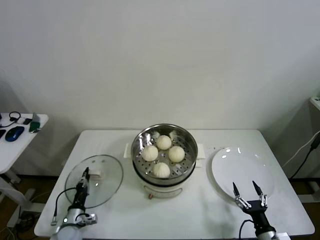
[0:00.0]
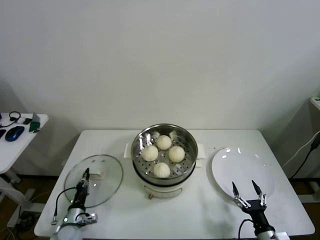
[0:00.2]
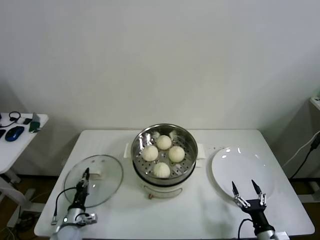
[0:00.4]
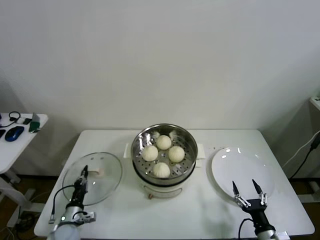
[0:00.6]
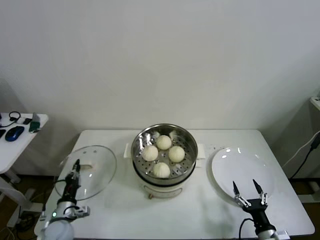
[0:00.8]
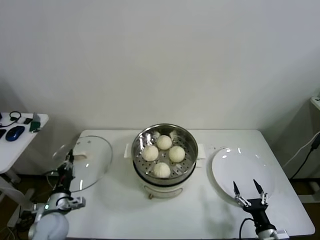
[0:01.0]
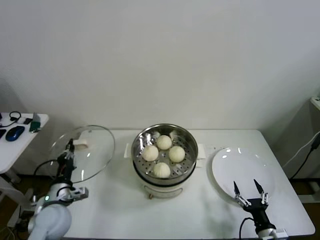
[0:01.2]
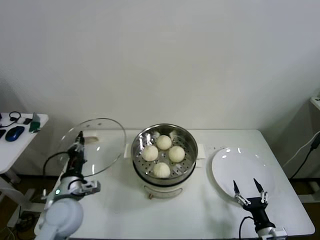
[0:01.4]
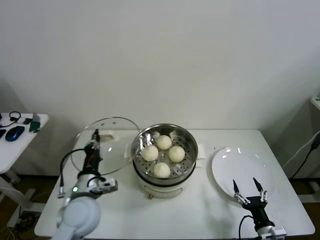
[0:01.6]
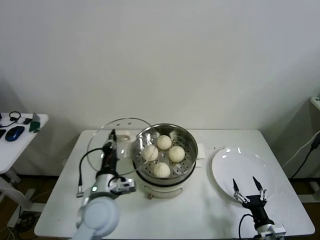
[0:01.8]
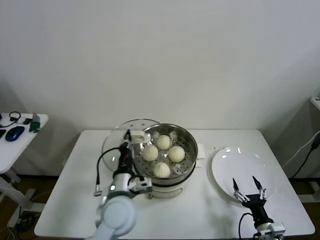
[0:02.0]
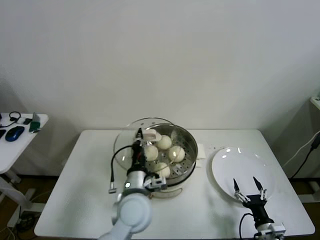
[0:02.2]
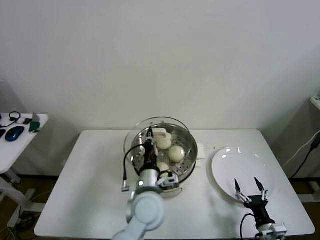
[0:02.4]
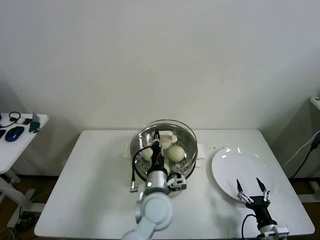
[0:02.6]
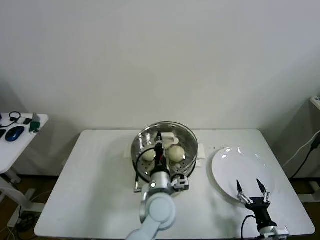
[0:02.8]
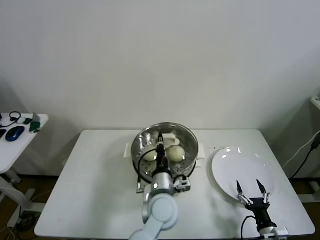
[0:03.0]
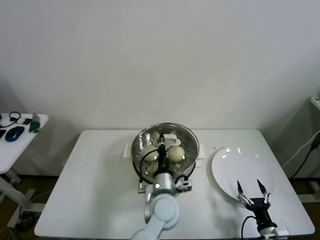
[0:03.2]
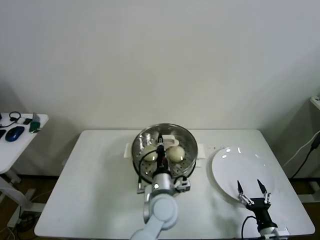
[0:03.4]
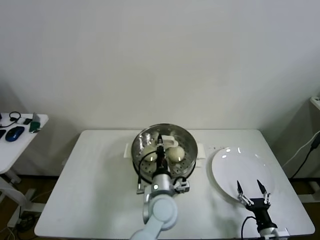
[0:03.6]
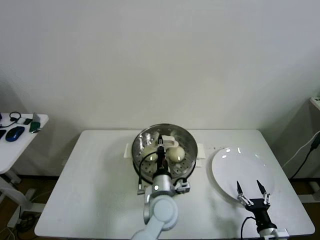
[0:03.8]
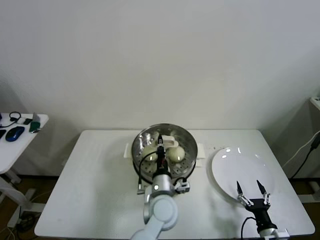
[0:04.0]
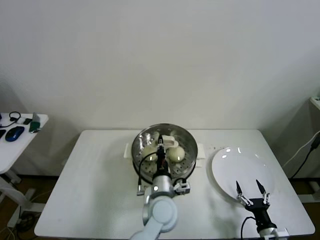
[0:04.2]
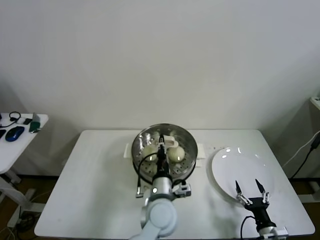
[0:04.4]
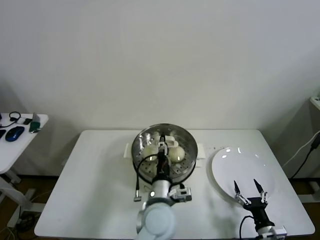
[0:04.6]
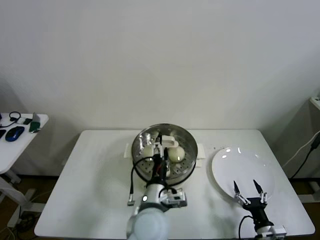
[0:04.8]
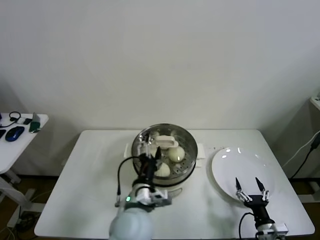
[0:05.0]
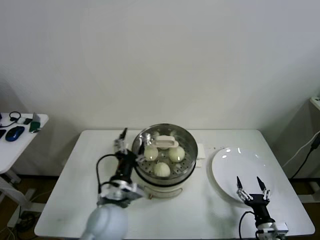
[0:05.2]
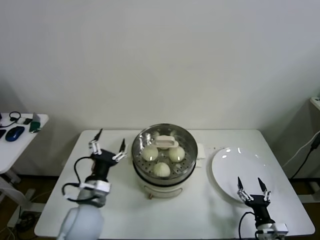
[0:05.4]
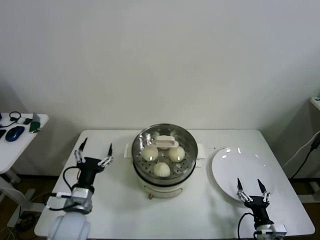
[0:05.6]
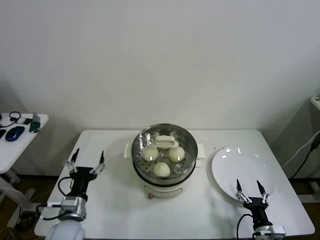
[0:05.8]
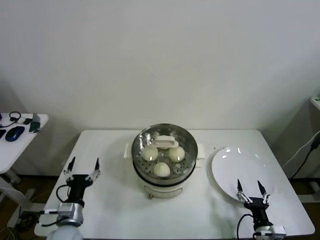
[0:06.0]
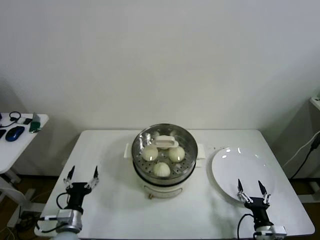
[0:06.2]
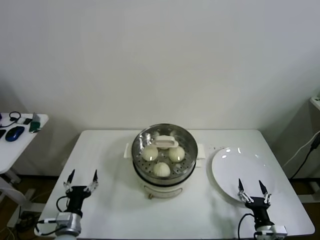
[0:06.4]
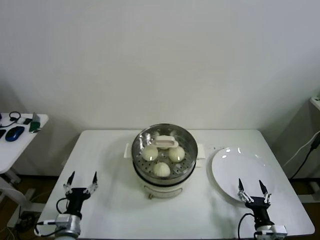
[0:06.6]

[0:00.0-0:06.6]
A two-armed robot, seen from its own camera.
Step, 0:00.2 to 0:04.2: Place the pot lid on the steamer with left gripper.
0:00.0 to 0:01.6: The left gripper heads upward and to the right, covering some 25 cm.
0:01.6 to 0:03.2: The left gripper shifts some 25 cm to the right.
0:03.2 to 0:05.0: The left gripper travels to the left and backward by approximately 10 cm, and opens up.
0:05.0 to 0:06.6: The left gripper goes some 30 cm to the left and downward.

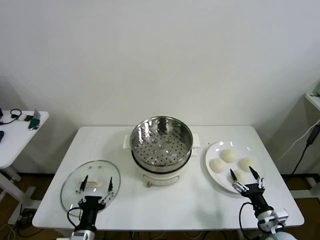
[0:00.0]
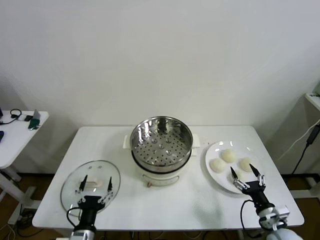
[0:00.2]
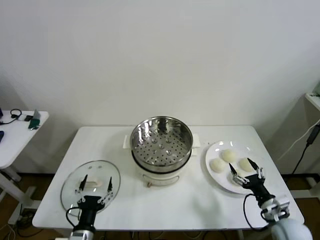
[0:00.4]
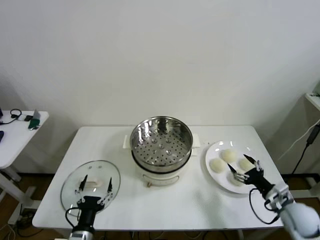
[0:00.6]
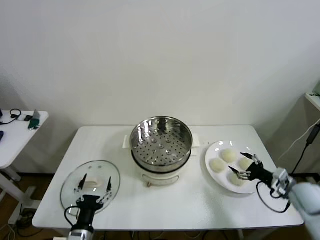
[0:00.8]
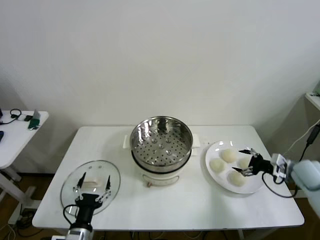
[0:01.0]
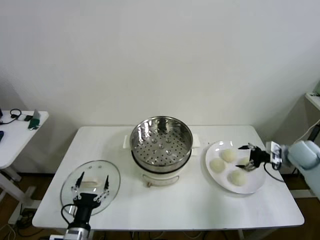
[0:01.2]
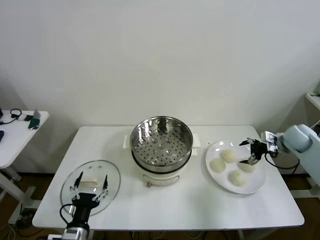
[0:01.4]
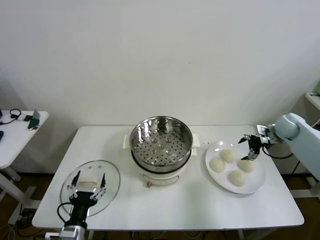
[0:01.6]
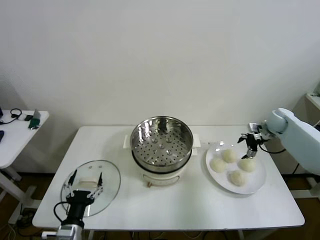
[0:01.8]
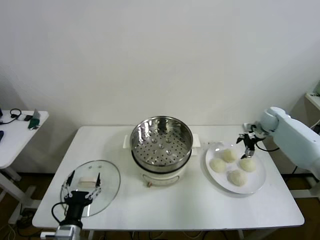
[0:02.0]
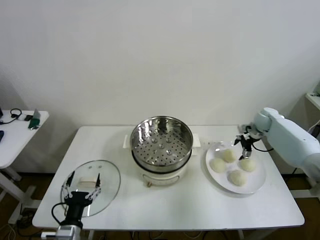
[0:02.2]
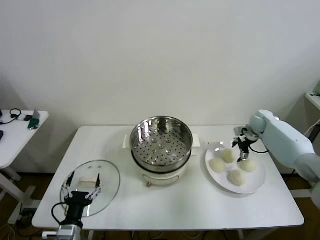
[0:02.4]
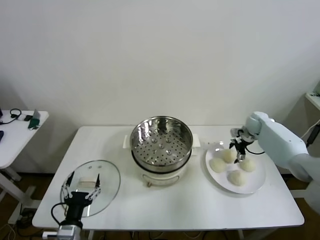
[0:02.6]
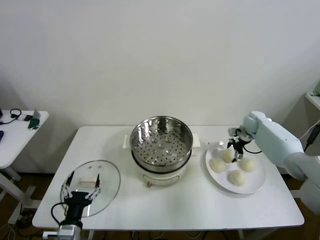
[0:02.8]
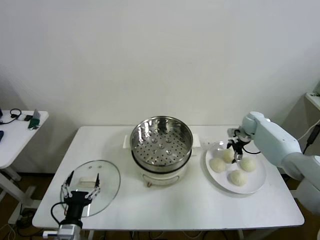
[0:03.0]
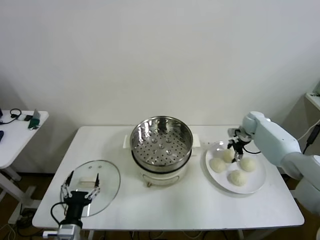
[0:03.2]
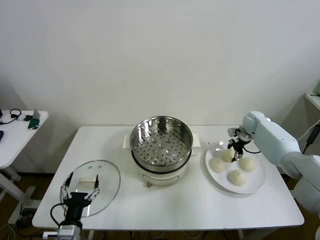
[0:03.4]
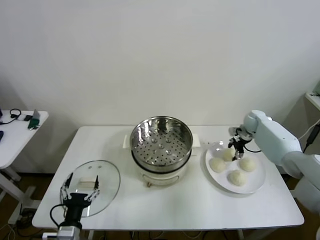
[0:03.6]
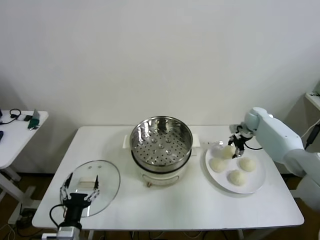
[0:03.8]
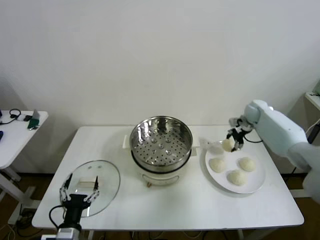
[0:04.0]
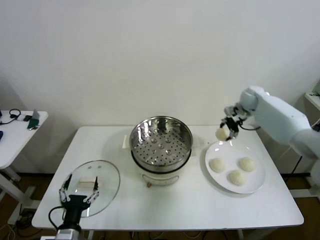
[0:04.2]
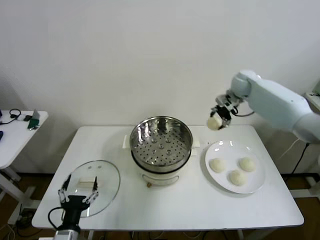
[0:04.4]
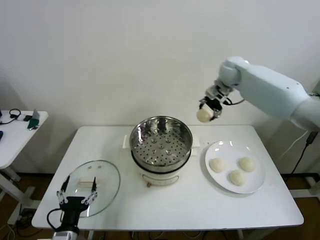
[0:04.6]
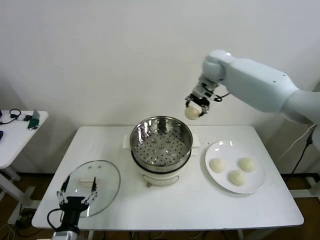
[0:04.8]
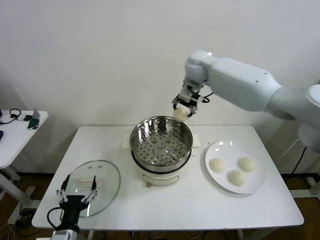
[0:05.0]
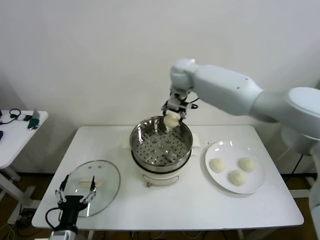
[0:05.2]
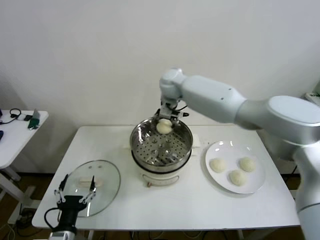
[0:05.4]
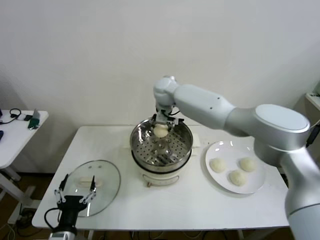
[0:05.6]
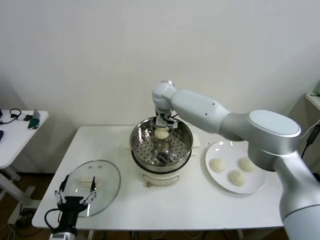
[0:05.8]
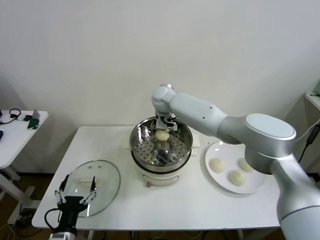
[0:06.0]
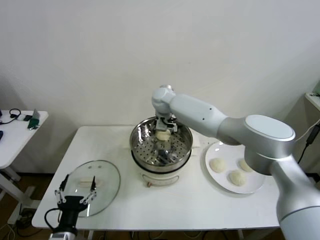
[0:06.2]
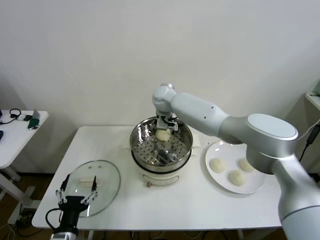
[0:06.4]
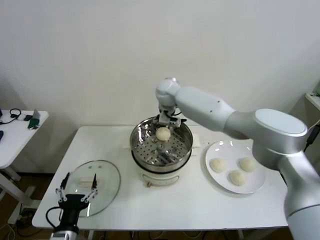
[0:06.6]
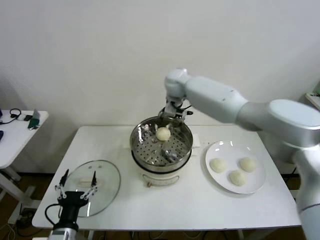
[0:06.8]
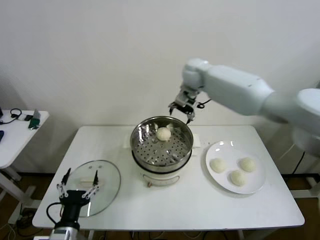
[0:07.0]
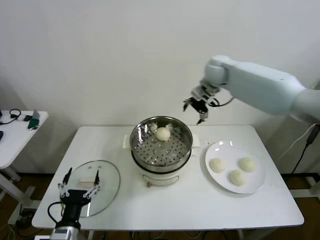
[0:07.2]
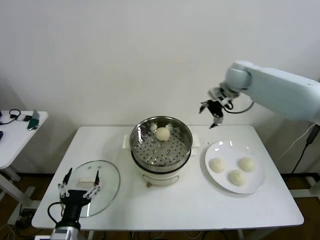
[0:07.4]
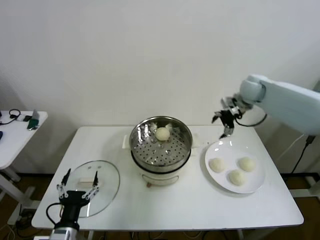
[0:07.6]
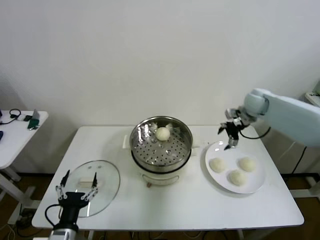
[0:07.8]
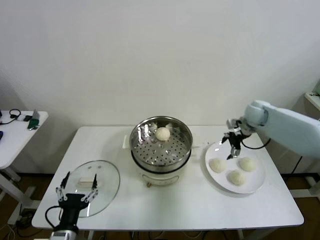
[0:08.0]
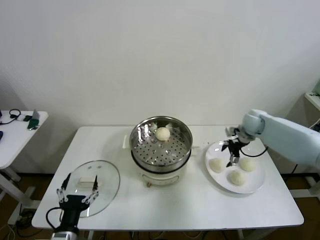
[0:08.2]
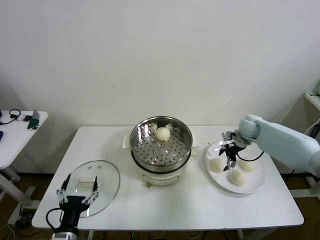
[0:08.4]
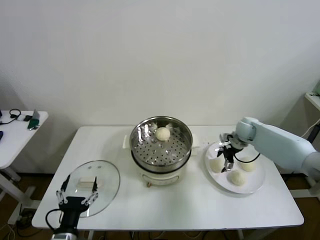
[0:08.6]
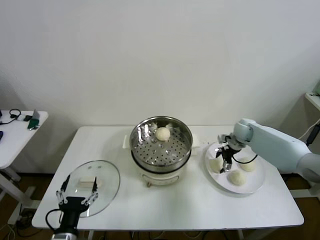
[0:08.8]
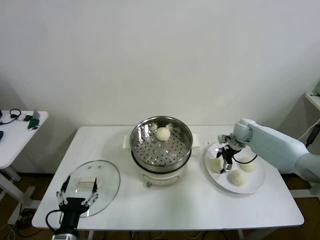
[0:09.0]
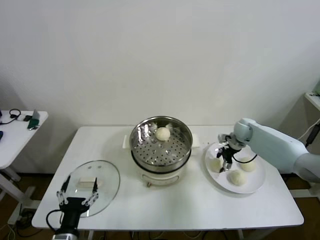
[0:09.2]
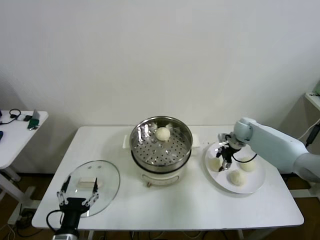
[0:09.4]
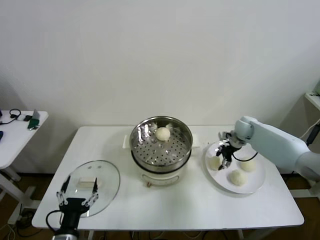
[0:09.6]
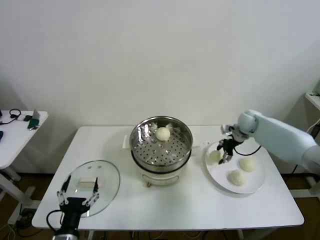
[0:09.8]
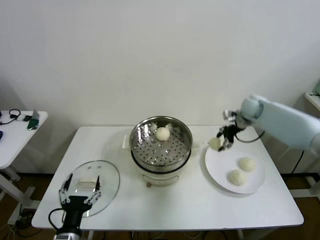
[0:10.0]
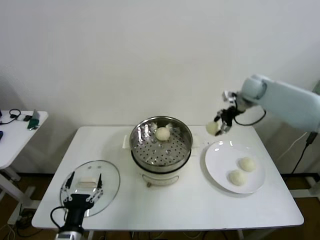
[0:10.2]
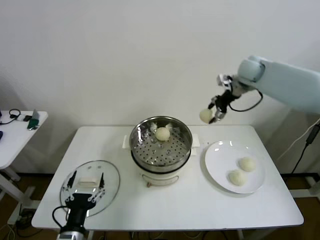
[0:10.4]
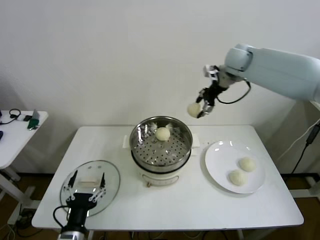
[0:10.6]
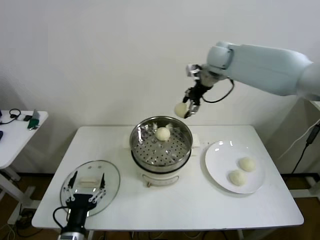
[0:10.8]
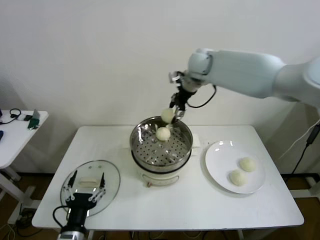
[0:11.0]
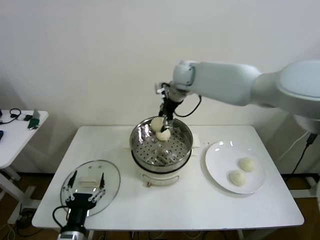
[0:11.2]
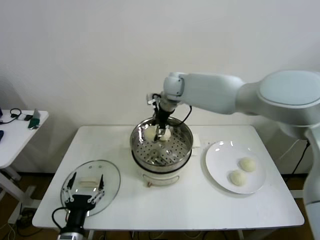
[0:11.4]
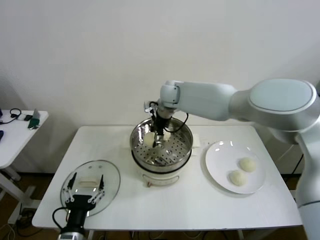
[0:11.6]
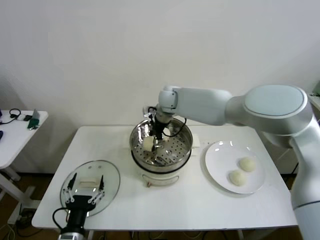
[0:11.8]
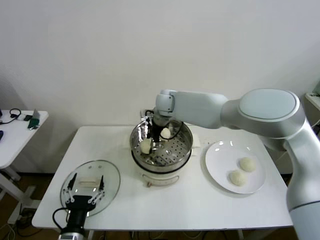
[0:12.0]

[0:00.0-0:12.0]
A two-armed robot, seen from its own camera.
Step, 0:00.0 to 0:03.2: Grasp the baozi in the plate with right gripper.
Step, 0:03.4 to 0:06.2: Place the baozi on the steamer with right gripper.
Step, 0:06.4 to 0:09.2: Grasp the baozi in the plate with right gripper.
0:01.6 to 0:03.0: The right gripper shifts about 10 cm to the left, forward and downward.
0:03.0 to 0:04.4: The right gripper heads upward and to the left, covering roughly 25 cm, and closes up.
0:04.4 to 0:06.0: The right gripper shifts about 25 cm to the left, and opens.
0:06.0 to 0:07.6: The right gripper heads to the right, covering about 35 cm, and opens its fingers.
0:07.6 to 0:09.0: The right gripper moves downward, about 15 cm.
0:09.0 to 0:10.4: The right gripper moves upward, roughly 30 cm, and closes up.
0:10.4 to 0:12.0: The right gripper is displaced to the left and downward by roughly 30 cm.

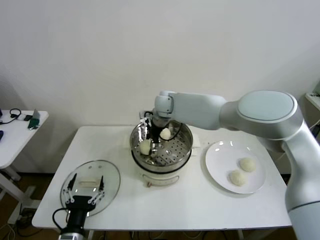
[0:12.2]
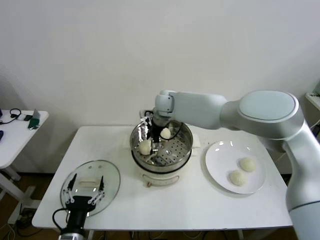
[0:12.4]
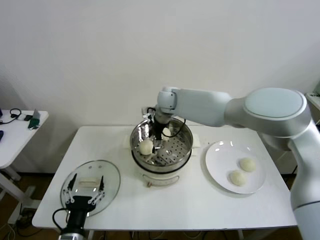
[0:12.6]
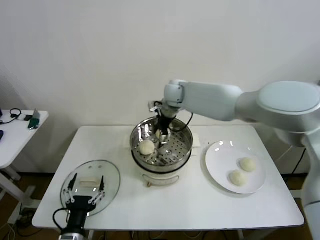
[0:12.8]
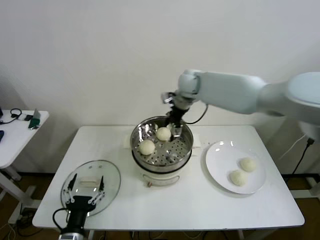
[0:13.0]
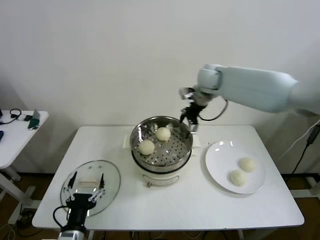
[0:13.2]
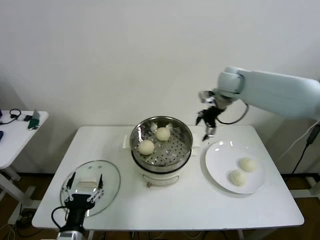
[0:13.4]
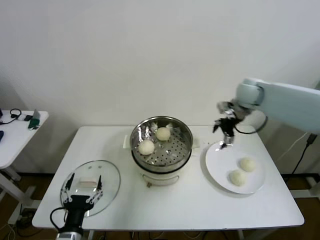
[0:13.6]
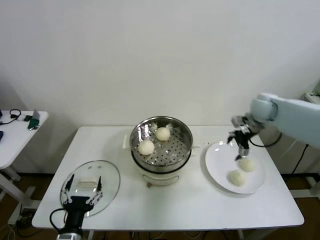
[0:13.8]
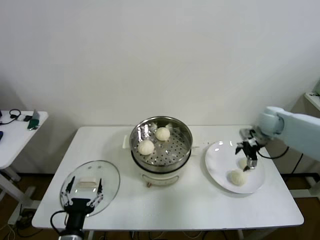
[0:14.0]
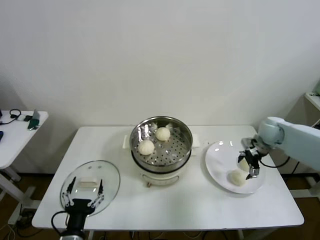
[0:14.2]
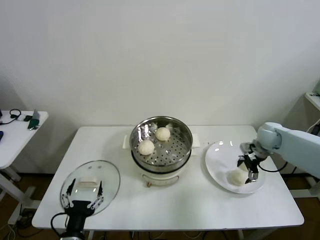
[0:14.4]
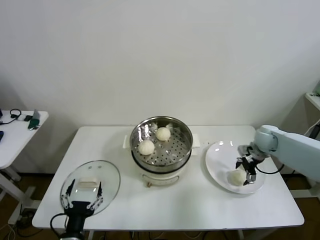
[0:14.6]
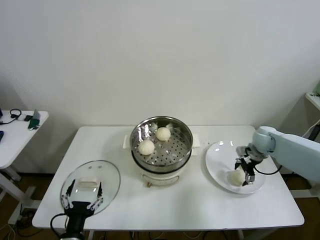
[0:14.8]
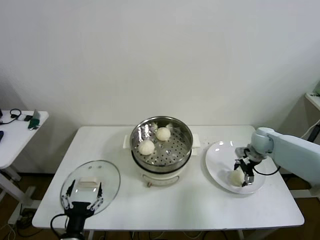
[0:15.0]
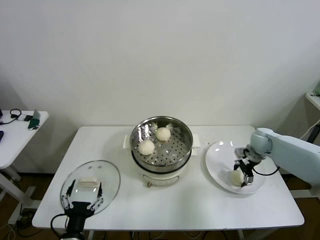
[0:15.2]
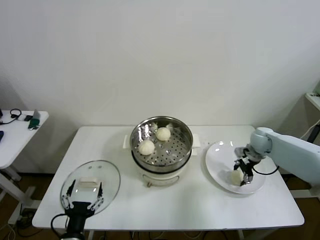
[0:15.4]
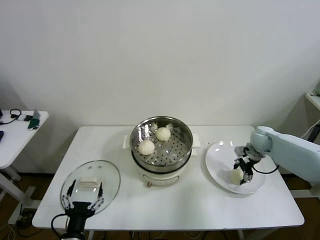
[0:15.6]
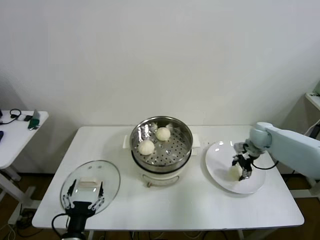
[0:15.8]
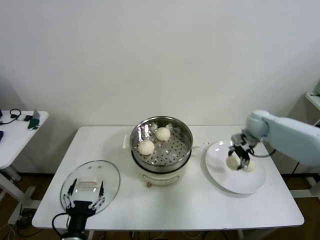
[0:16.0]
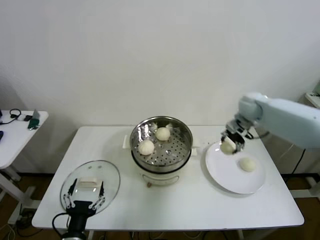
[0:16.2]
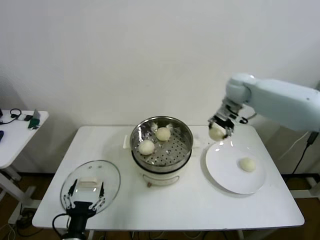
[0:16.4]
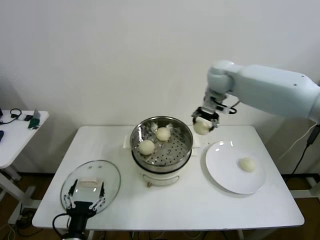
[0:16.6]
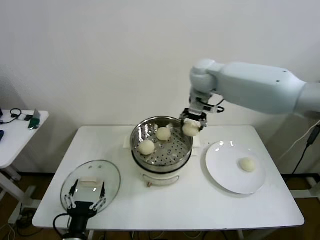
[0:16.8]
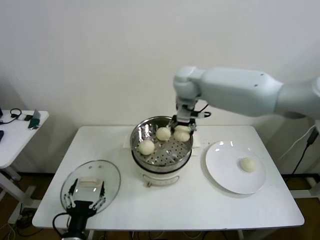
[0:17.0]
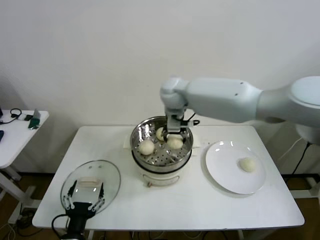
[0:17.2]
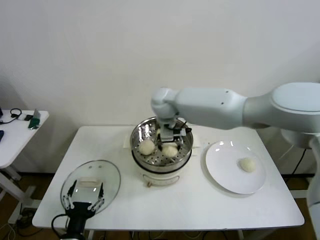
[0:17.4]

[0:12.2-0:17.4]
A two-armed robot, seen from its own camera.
Step, 0:12.6 to 0:15.4: Grasp the baozi in the plate with right gripper.
0:12.2 to 0:14.0: The right gripper moves to the right, some 40 cm.
0:14.0 to 0:15.6: The right gripper moves downward, approximately 10 cm, and closes its fingers.
0:15.6 to 0:17.4: The right gripper heads to the left and upward, covering about 40 cm.
